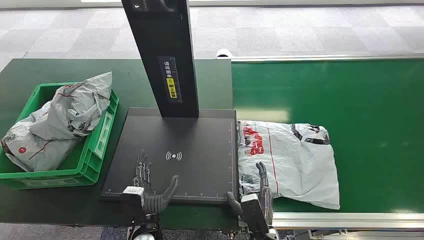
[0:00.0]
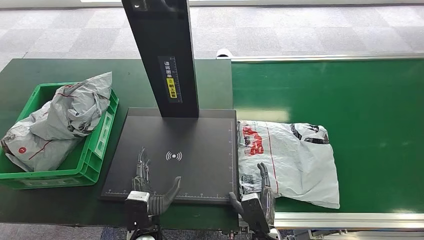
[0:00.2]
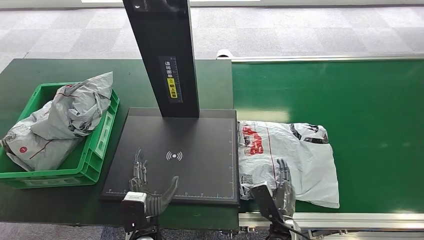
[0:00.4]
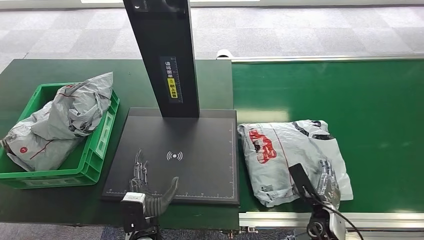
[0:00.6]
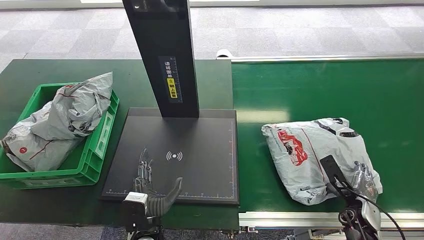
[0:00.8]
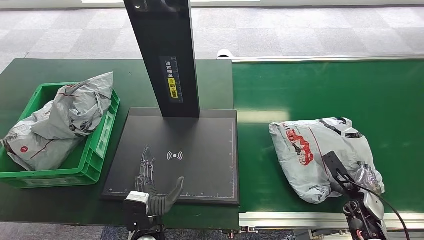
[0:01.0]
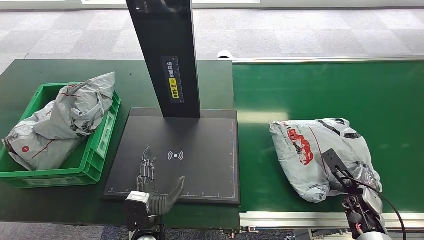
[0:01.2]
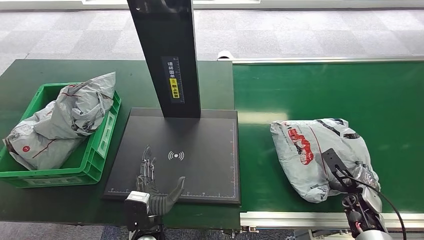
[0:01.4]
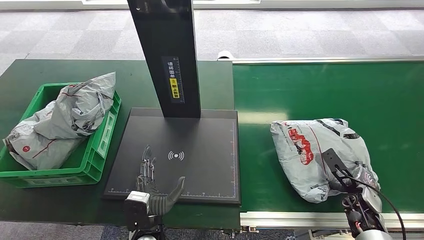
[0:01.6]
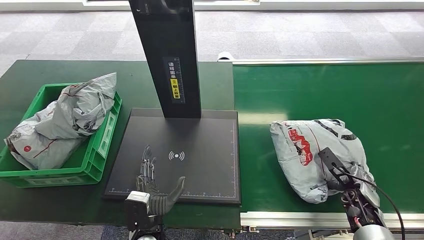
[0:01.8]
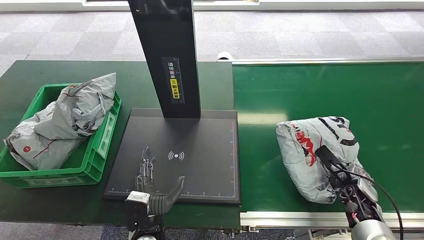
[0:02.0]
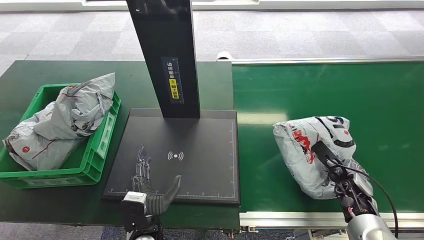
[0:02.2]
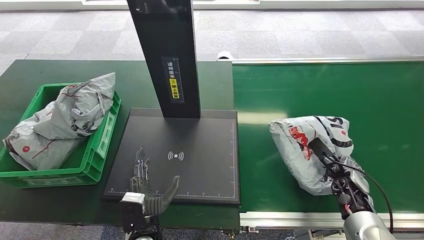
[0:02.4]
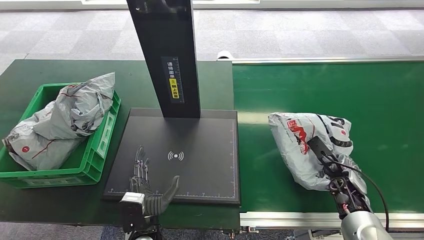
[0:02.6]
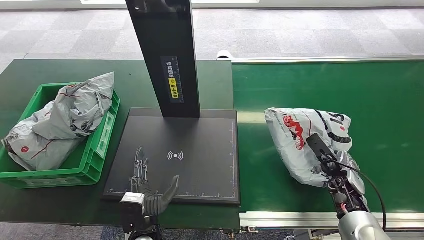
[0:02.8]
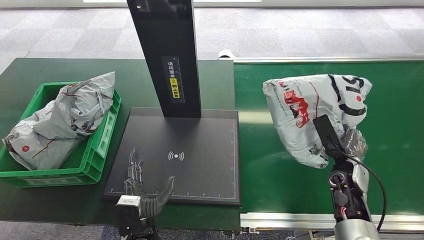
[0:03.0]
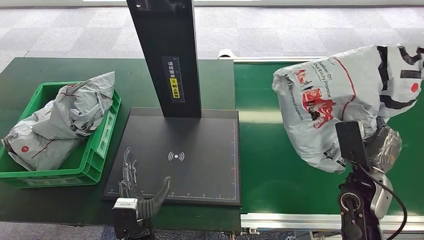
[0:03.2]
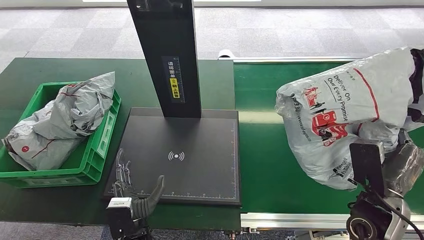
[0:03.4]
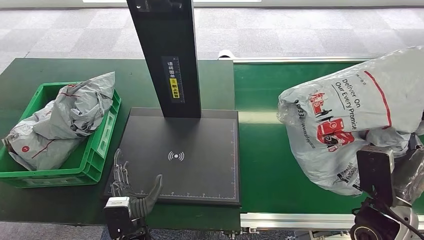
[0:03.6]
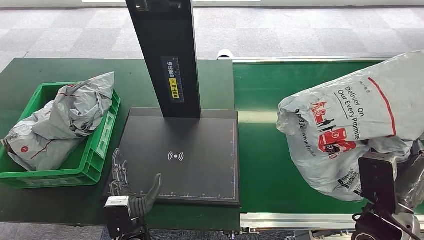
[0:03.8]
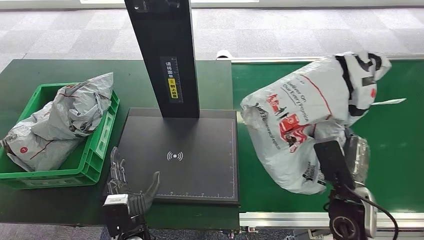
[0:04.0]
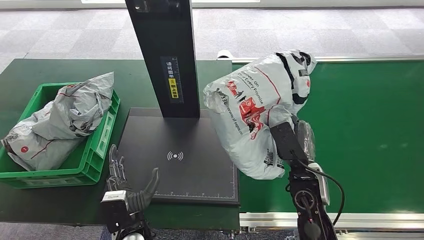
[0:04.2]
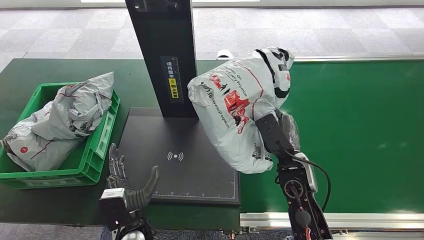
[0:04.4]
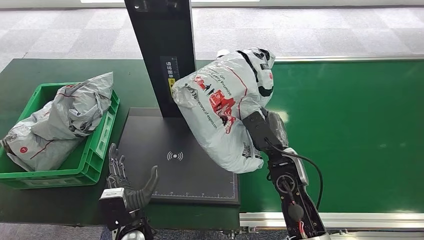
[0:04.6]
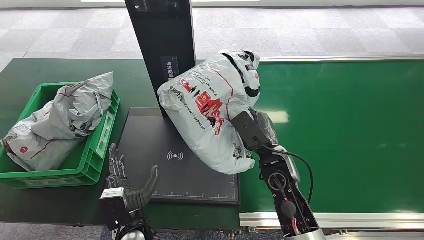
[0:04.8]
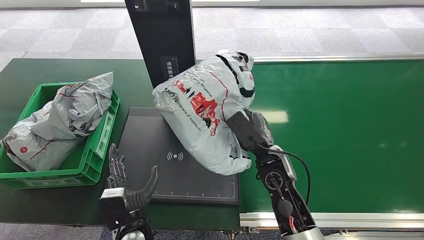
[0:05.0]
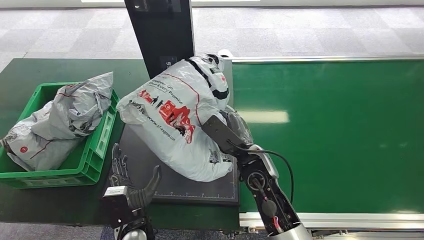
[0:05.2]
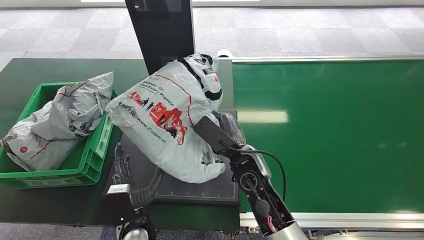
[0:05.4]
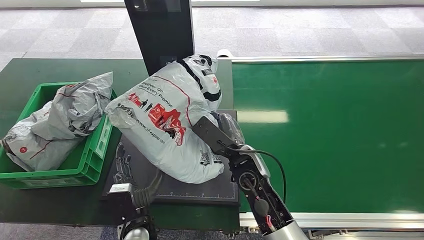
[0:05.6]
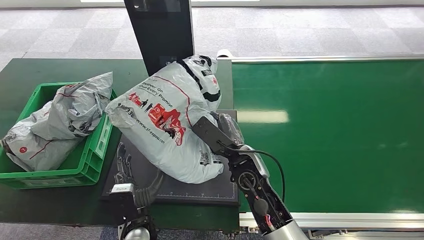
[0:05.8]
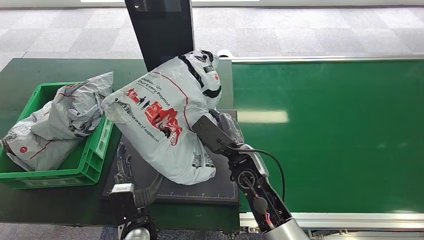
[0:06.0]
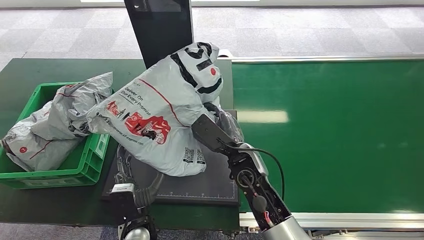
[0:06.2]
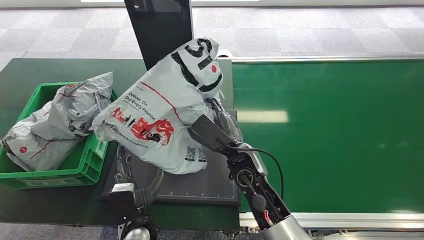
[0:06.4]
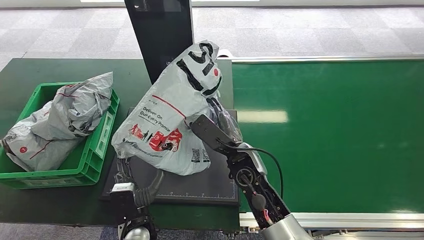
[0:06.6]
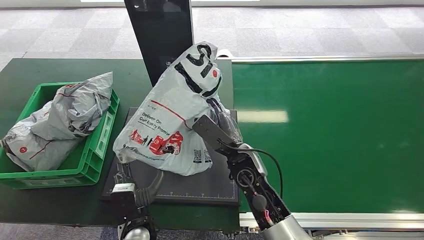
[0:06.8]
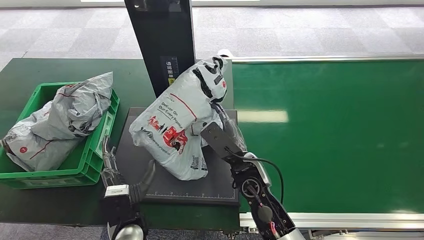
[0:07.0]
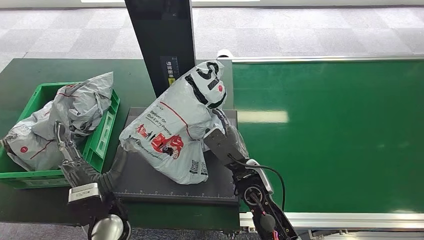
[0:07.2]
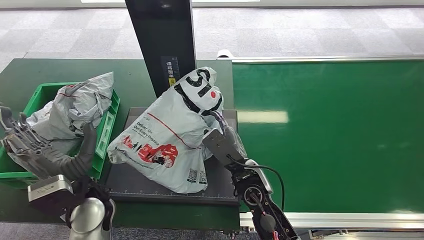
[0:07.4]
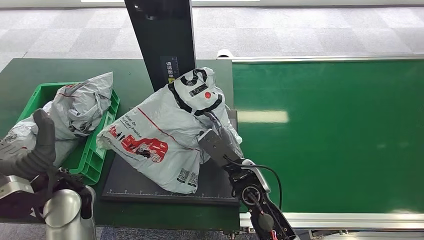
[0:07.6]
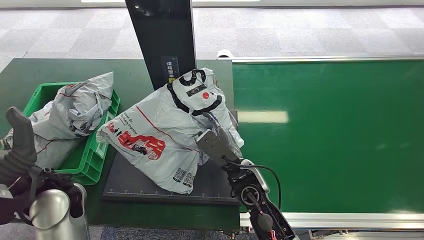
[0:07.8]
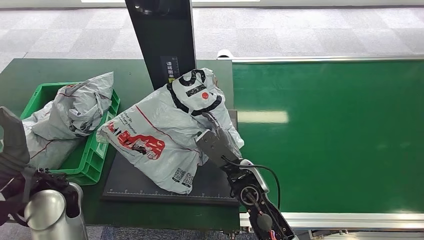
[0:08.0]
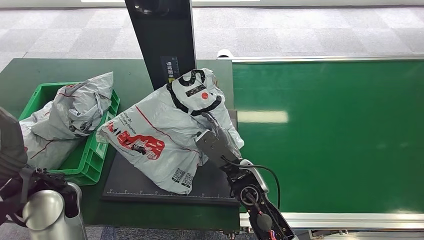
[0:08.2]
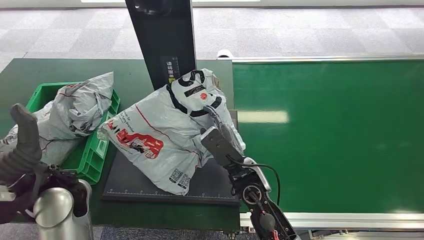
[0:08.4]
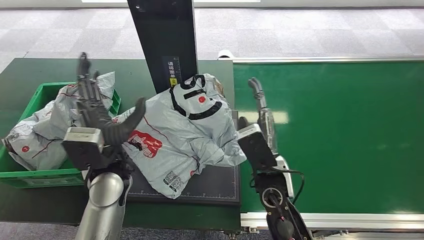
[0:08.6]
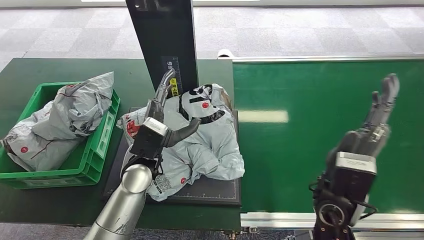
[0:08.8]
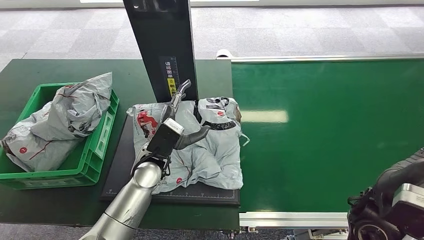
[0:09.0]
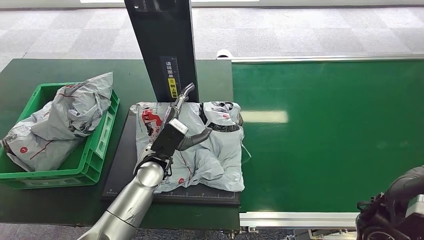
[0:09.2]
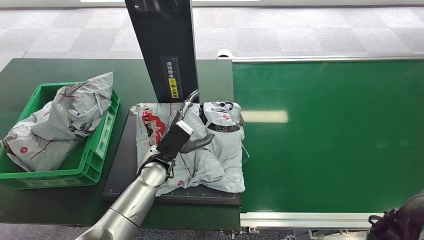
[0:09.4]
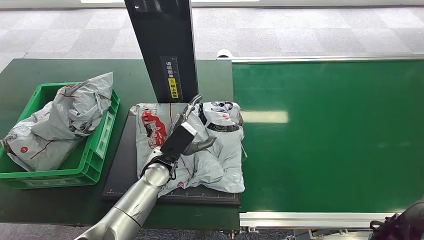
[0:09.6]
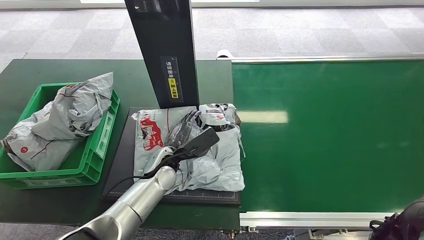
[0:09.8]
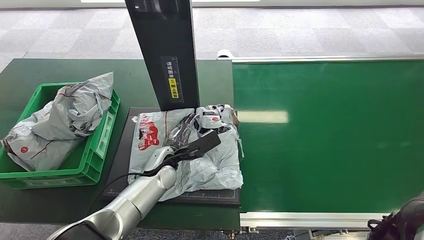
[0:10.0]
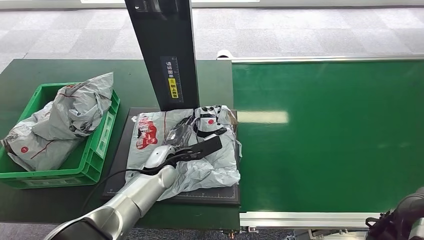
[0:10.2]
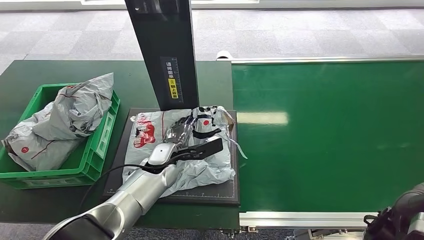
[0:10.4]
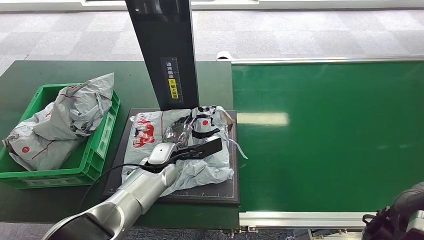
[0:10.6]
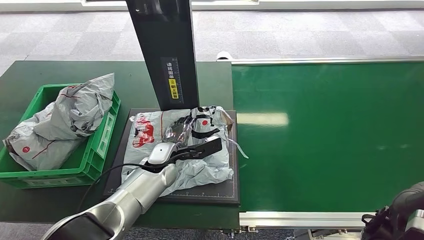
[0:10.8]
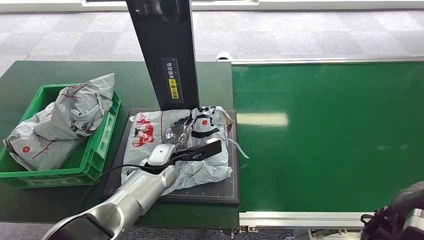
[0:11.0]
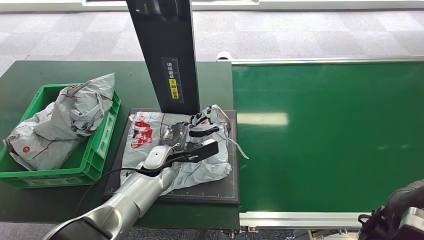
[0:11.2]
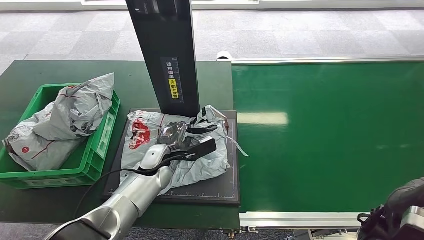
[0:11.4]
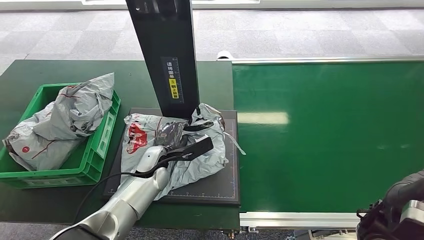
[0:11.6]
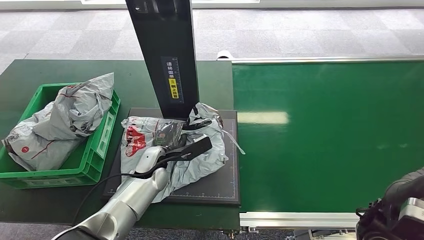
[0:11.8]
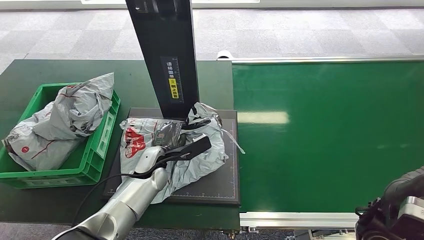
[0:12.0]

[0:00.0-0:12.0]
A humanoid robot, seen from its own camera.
Task of the whole recording: Weigh the package on the weighing device and place it in the left basket.
Step, 0:00.0 to 0:03.6: Pick up the package from the conveyor belt.
Step, 0:03.8 to 0:07.6: Place the package onto the inbound machine.
0:01.6 to 0:03.0: The right hand heads upward, to the left and forward, covering approximately 10 cm.
0:06.0 to 0:07.6: The left hand shifts approximately 20 cm upward, to the left and forward.
0:10.4 to 0:12.0: The hands move only a little.

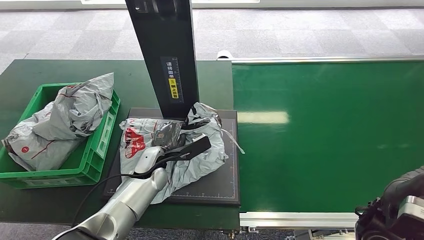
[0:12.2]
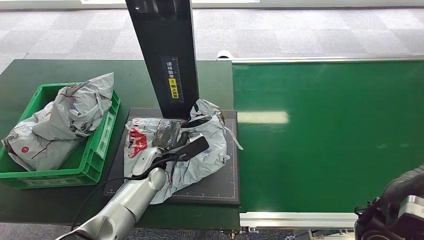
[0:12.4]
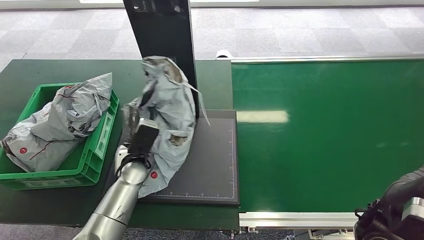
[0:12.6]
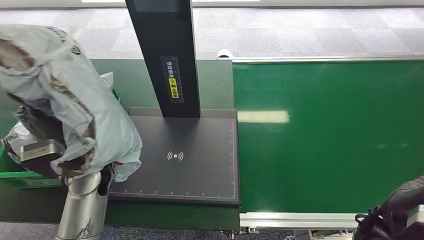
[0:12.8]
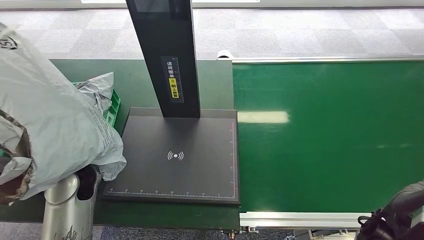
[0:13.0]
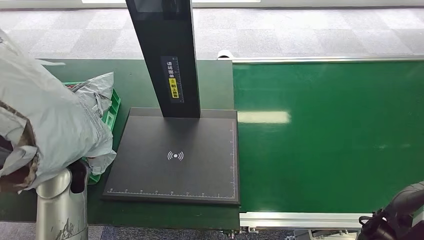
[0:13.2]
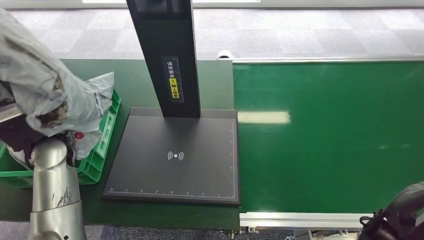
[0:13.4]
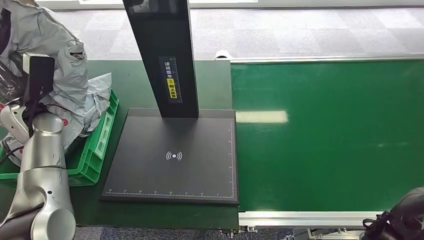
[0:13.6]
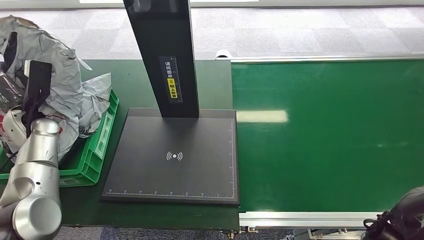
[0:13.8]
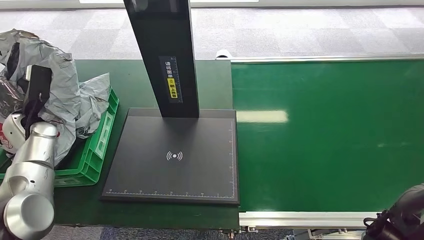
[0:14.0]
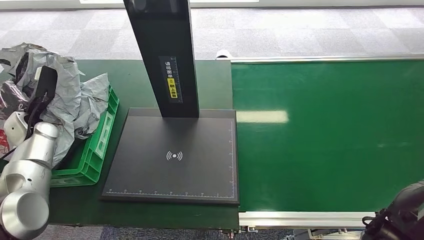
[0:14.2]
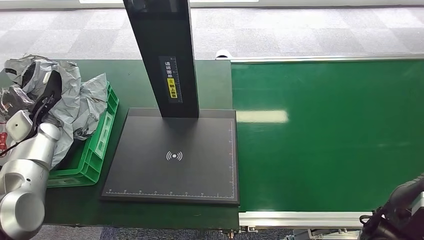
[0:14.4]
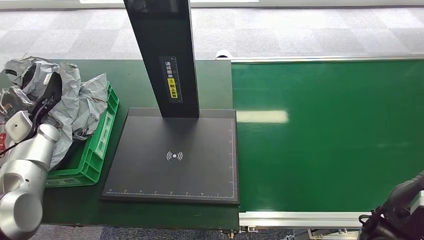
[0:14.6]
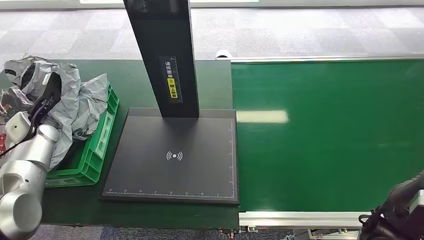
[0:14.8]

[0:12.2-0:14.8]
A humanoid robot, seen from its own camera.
Task of the whole recording: Weigh the package on the weighing device and place it in the left basket.
Step, 0:13.6 to 0:14.6: Place the package into the parcel locker.
0:13.4 to 0:14.8: The left hand shifts some 15 cm to the left, downward and forward.
